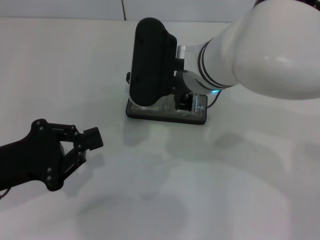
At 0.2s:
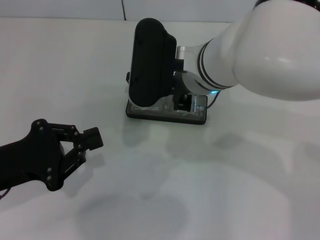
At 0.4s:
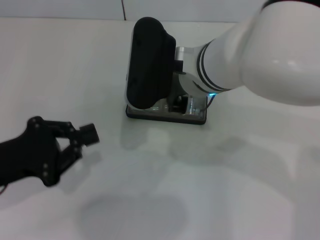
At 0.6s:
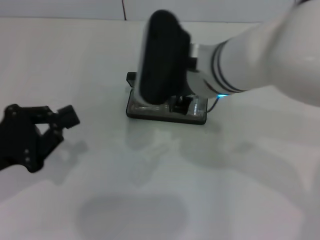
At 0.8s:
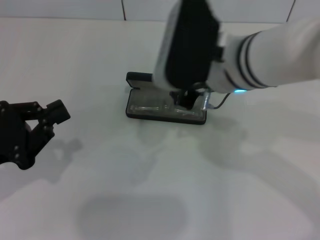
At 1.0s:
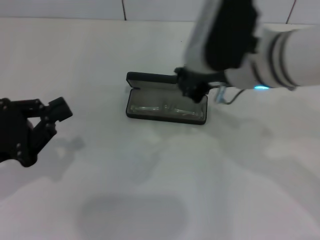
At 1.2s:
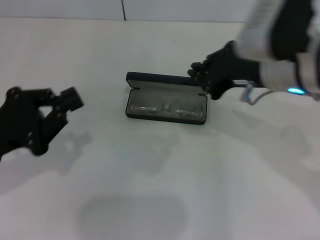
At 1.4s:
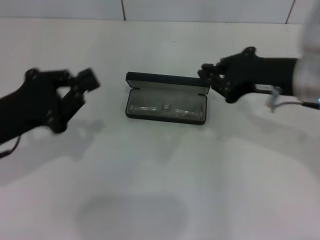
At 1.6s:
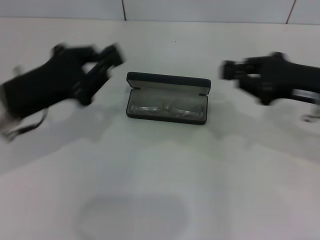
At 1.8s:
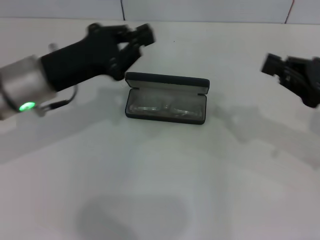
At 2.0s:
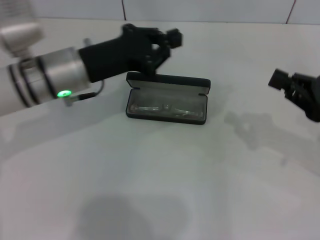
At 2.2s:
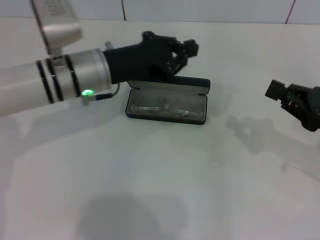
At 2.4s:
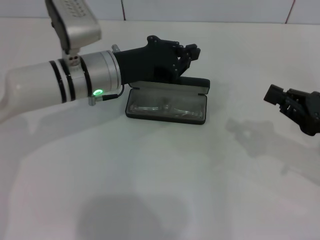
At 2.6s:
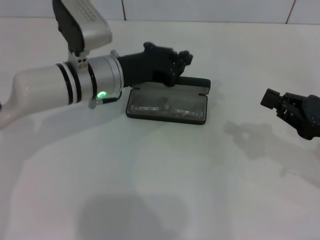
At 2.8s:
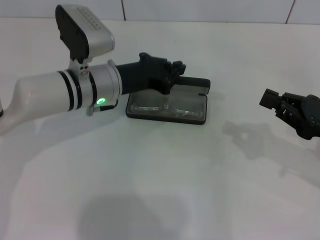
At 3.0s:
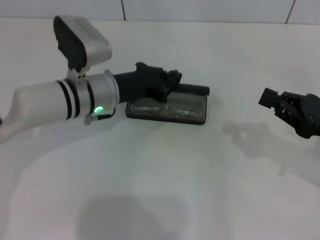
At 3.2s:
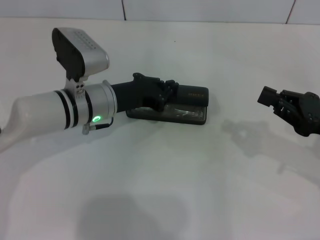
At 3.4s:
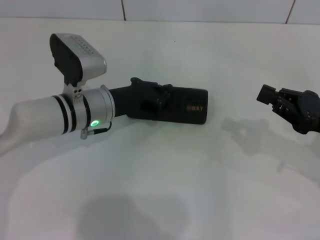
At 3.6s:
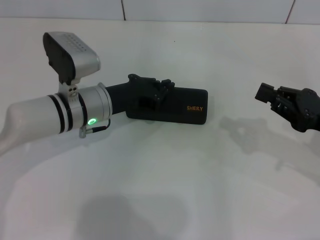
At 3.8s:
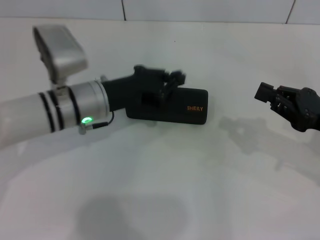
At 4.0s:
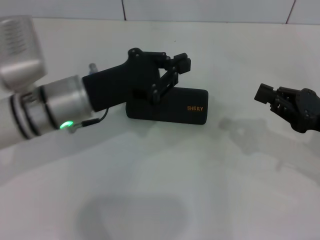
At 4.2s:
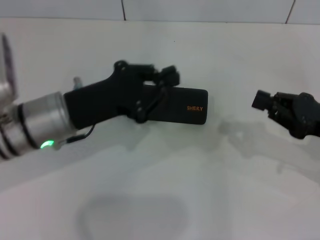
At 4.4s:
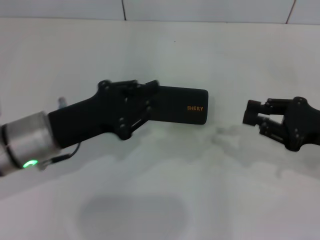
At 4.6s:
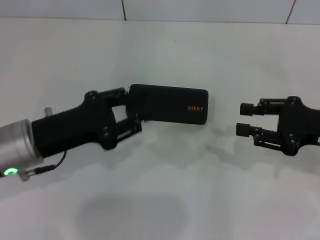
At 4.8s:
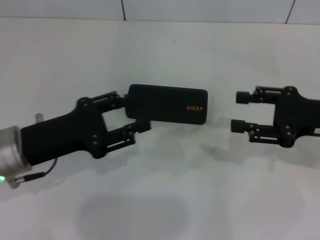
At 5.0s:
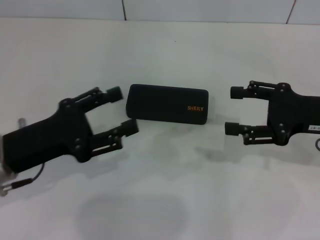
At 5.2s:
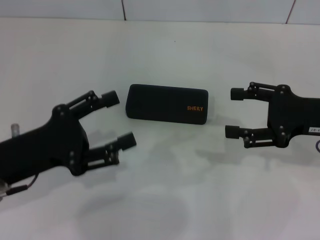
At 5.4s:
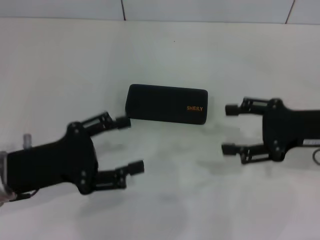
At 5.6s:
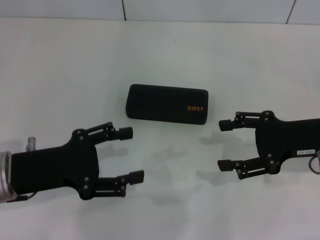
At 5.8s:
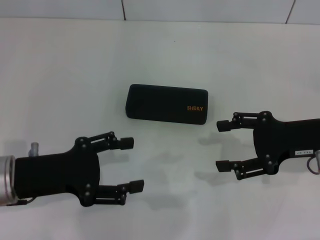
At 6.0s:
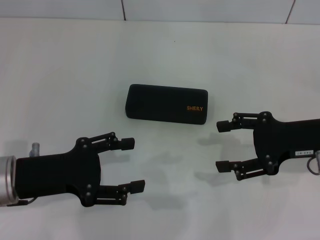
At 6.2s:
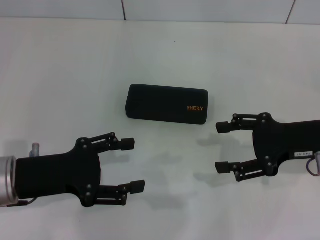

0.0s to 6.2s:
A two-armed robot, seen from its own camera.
Step, 0.4s to 3.6s: Close the glasses case with your left hand.
0.0s to 1.6s: The right gripper moves to the right, about 20 cm; the left gripper travels forward by approximately 5 cm.
1.6s to 3.2s: The left gripper travels to the right, forward and downward by some 15 cm. Meanwhile the right gripper moves downward and to the right, about 10 cm.
3.2s to 4.6s: The left gripper shifts some 15 cm backward and to the left.
4.6s to 6.2s: The right gripper opens up. Meanwhile the left gripper opens.

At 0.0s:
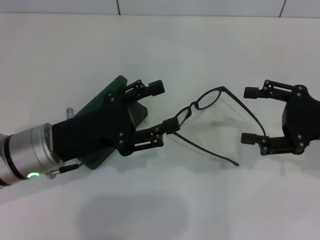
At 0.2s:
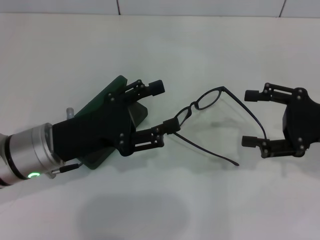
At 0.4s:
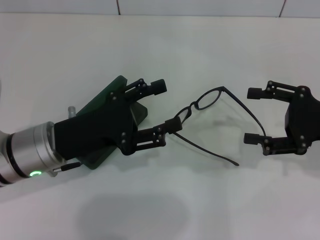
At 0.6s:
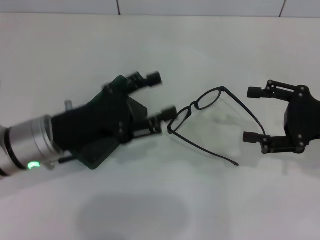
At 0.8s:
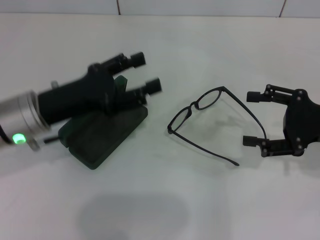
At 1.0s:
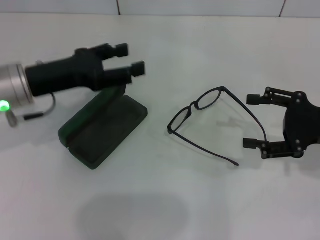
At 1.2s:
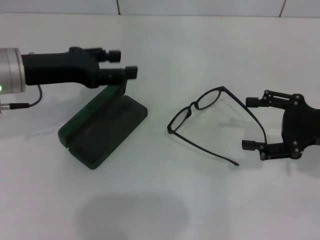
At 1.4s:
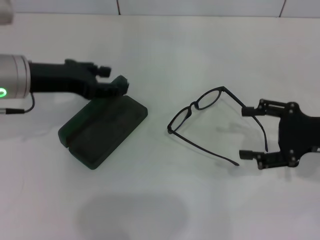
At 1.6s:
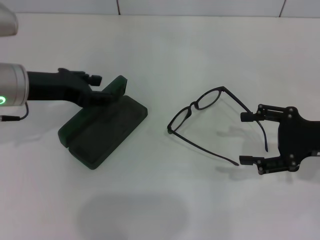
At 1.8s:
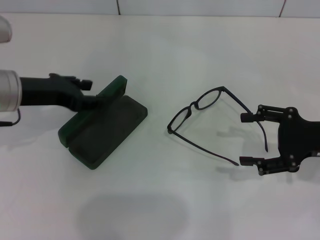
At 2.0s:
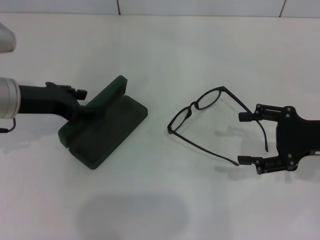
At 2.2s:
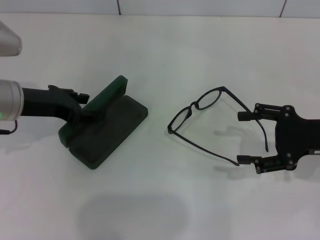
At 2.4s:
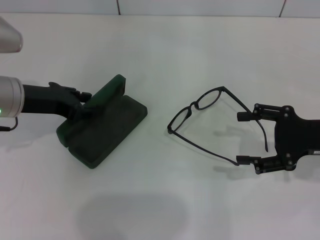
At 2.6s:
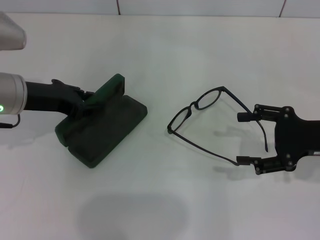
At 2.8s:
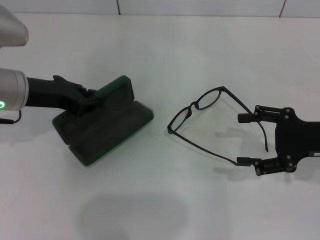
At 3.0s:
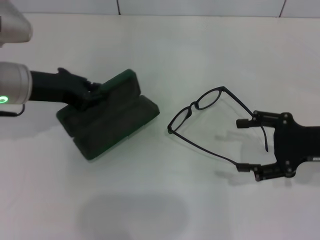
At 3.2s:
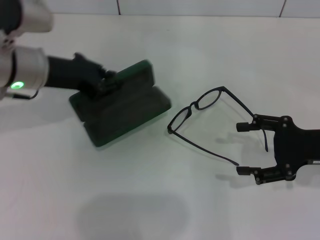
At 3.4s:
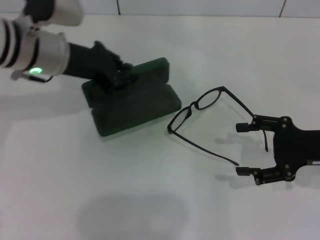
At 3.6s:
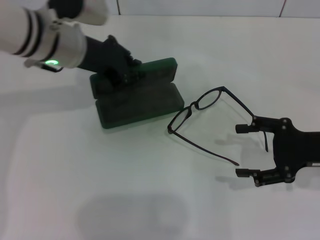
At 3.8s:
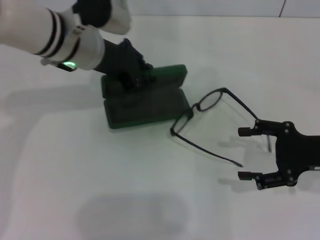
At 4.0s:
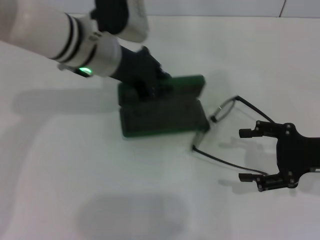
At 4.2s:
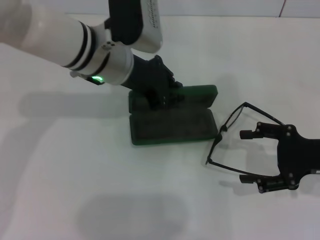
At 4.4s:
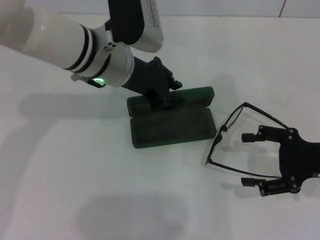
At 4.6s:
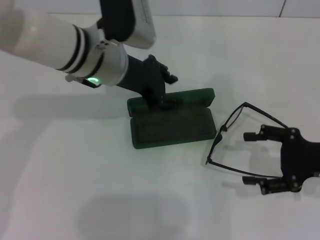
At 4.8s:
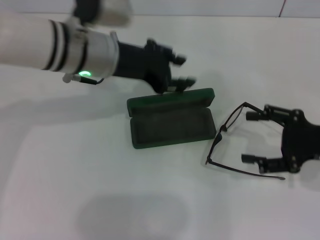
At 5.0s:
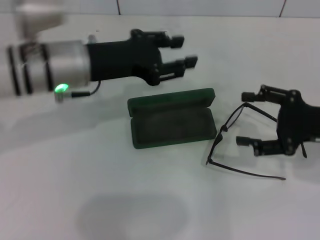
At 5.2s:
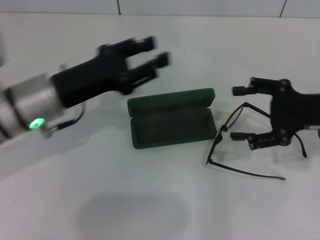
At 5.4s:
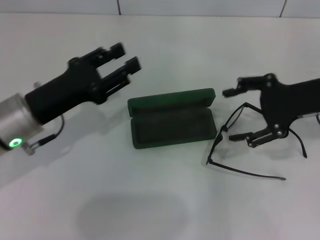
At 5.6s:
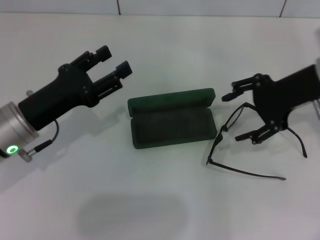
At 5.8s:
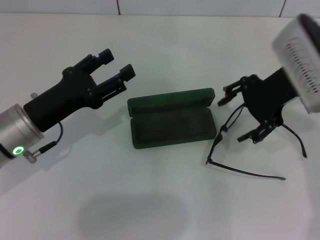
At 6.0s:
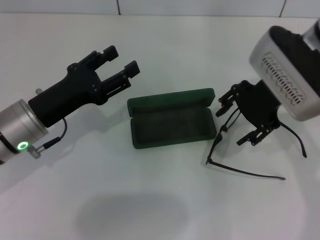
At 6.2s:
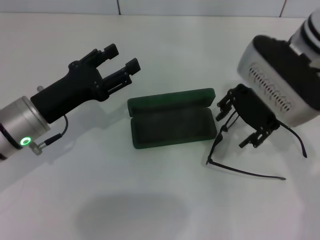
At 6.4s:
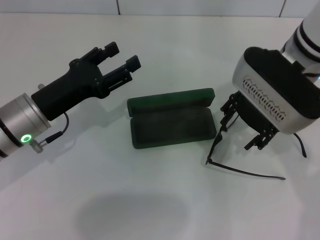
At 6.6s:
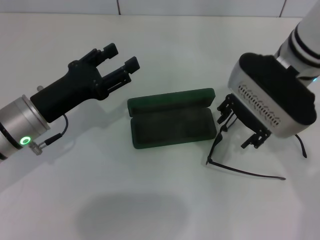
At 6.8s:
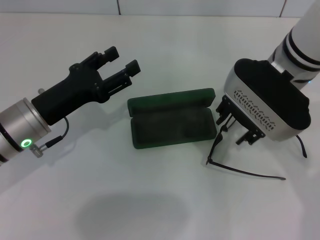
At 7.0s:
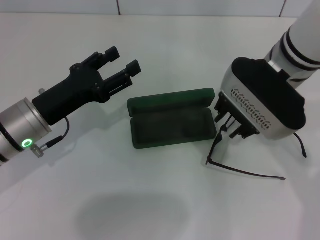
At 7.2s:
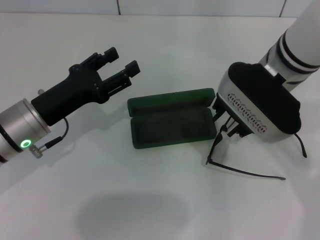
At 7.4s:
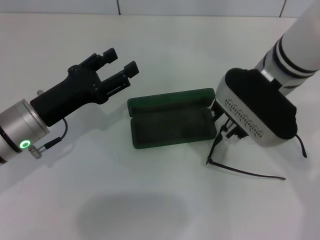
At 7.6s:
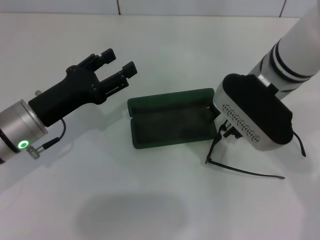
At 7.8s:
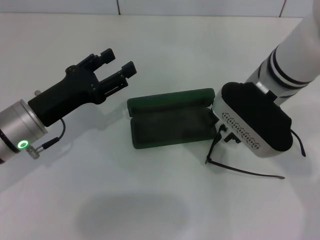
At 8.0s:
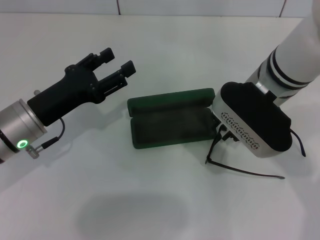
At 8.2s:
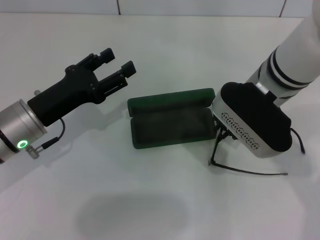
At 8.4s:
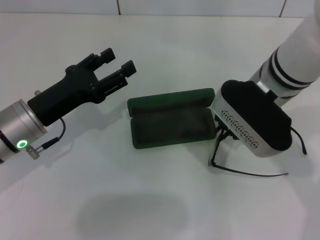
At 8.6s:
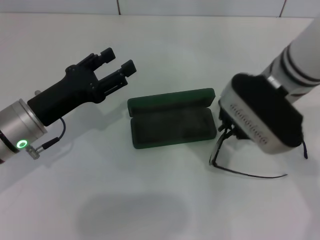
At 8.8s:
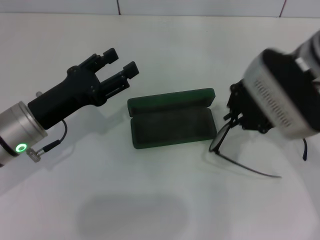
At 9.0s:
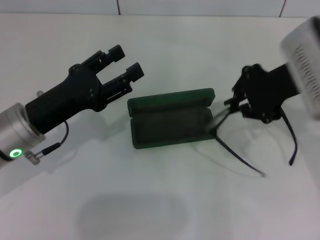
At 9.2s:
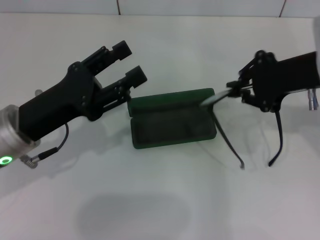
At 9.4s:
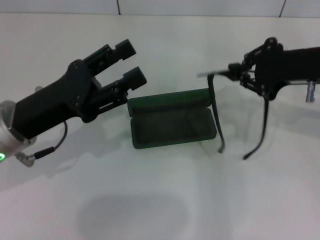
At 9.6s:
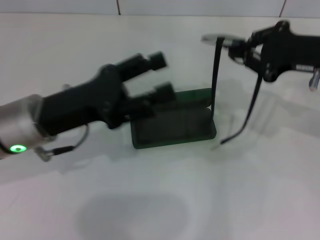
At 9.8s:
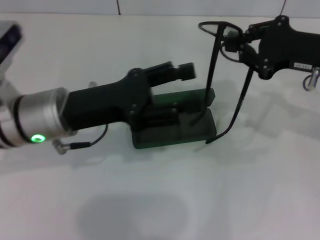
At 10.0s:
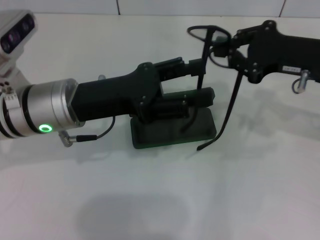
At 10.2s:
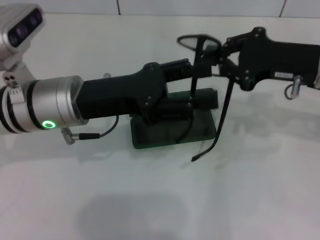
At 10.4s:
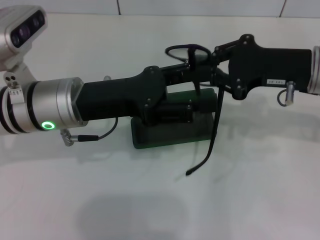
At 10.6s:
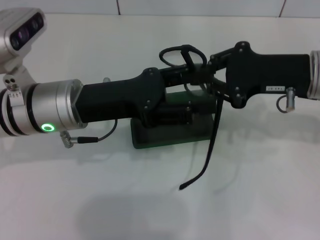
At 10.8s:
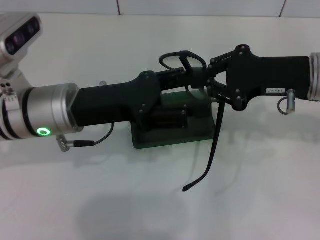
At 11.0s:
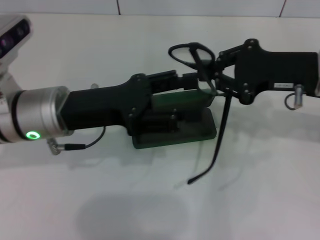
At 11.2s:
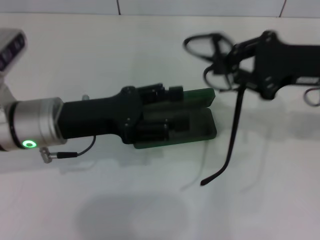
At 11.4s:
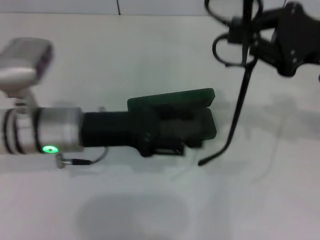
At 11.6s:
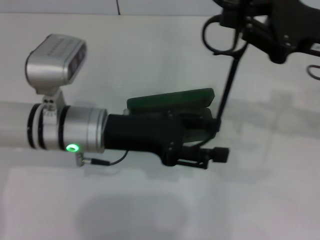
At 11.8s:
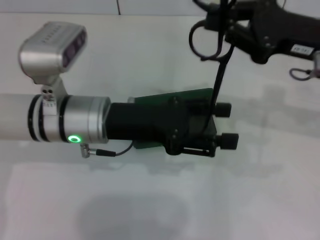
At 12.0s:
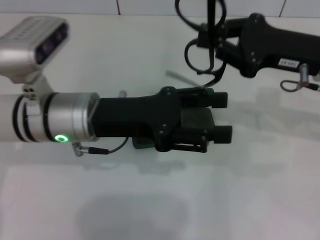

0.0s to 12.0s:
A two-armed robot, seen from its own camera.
Step, 0.0s to 2.6s: Grab the glasses case with your left hand.
Step, 2.8s to 4.4s: Place the glasses case in the center of the table with your left hand.
Step, 4.6s to 8.4s: Grab the eyeglass frame with your right hand.
0.0s to 1.6s: The left gripper travels forward and upward by approximately 10 cm.
1.6s to 3.0s: The left gripper closes.
3.0s to 4.4s: The left gripper moves to the right, roughly 15 cm.
4.4s to 6.0s: The left gripper moves to the left, backward and downward, roughly 15 cm, and opens up, while the right gripper travels to the left, upward and forward by approximately 20 cm.
6.0s to 7.6s: The right gripper ends up roughly 5 cm from where it was, and closes up.
7.6s to 9.0s: The right gripper is displaced to the right by roughly 5 cm, and closes its fingers.
9.0s to 10.4s: The left gripper goes some 5 cm to the right.

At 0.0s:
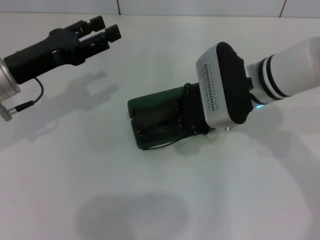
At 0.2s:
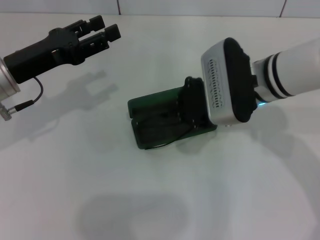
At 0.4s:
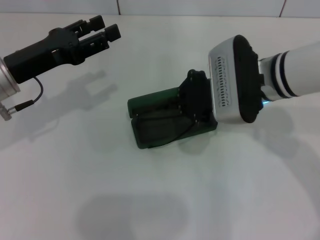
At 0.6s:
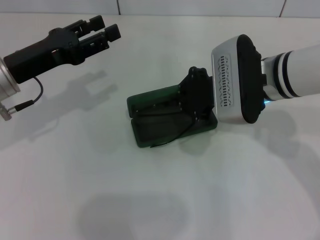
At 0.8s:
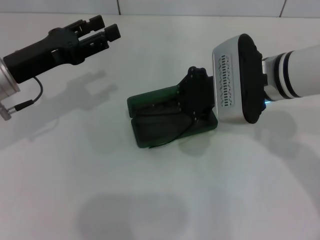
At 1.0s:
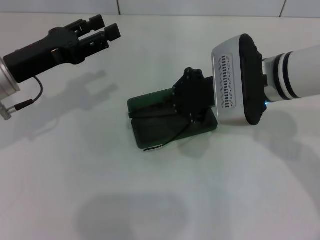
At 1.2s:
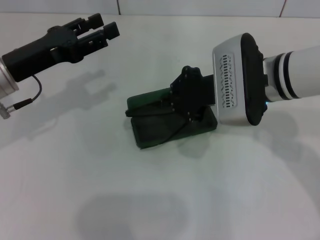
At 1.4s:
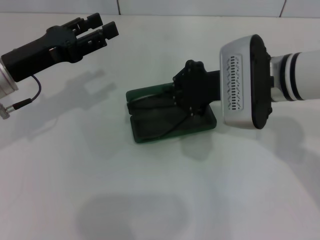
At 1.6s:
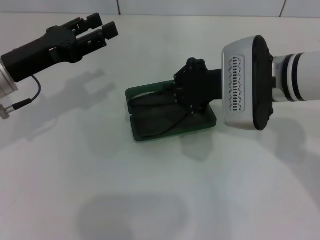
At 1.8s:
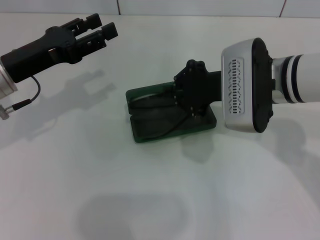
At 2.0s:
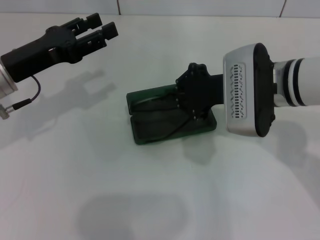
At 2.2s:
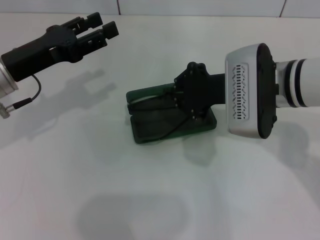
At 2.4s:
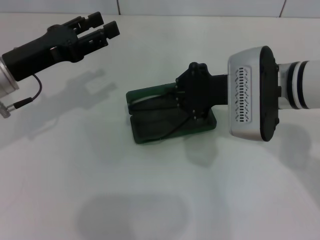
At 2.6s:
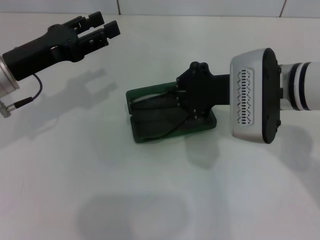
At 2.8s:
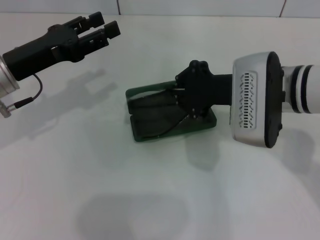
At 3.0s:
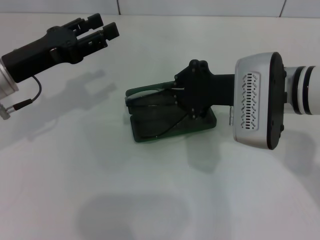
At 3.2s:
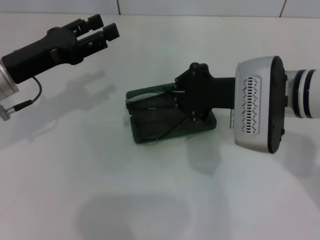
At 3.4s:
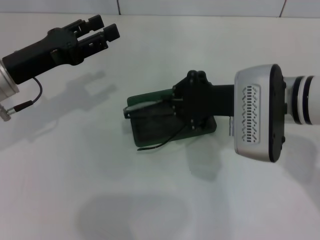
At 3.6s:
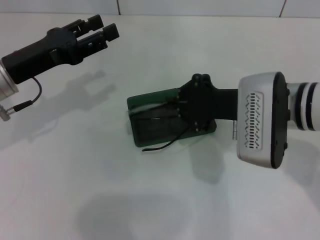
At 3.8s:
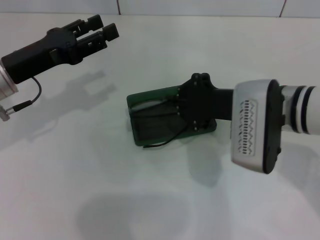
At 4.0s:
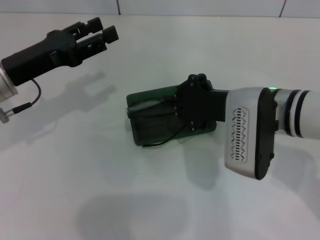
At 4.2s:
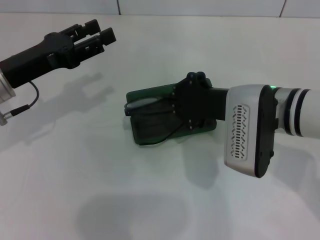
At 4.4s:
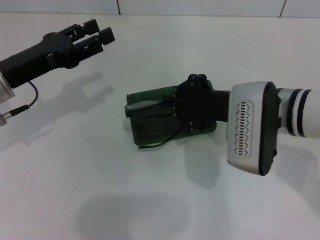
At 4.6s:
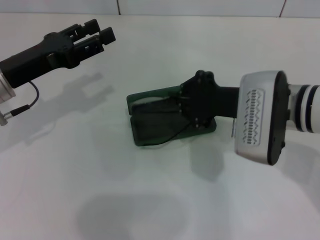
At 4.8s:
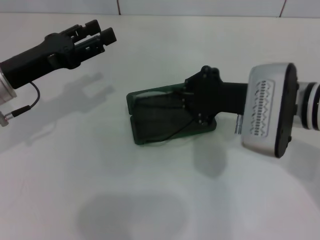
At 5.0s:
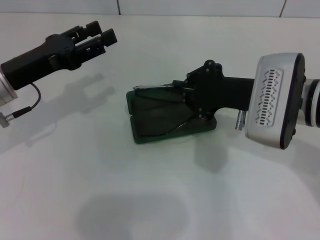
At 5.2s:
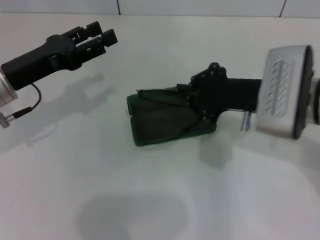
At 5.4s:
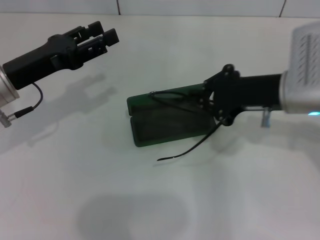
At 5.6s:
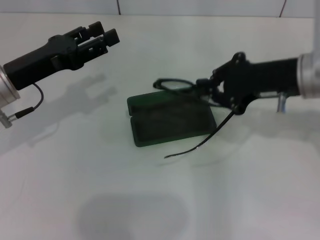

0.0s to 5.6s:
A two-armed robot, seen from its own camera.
0.0s to 1.4s: There are only small adjustments of the grippers.
1.4s to 4.2s: The grippers move only a little.
4.2s to 5.6s: The right gripper goes some 10 cm to the right and upward.
